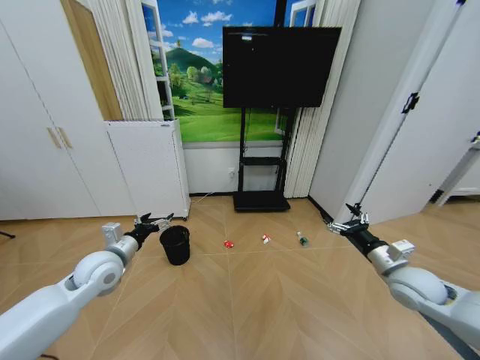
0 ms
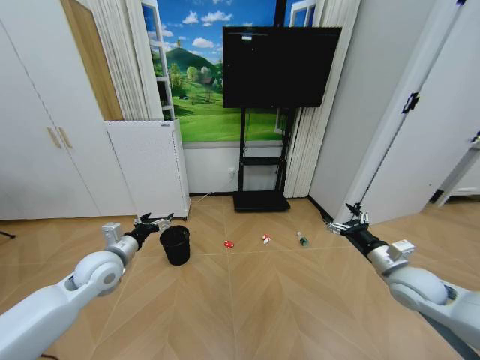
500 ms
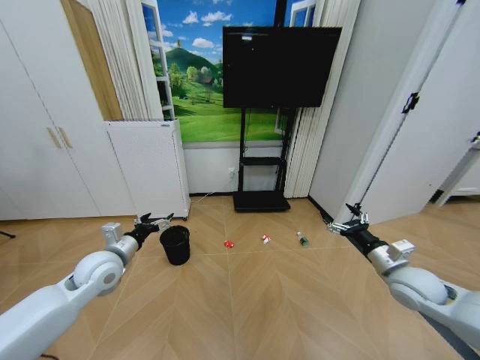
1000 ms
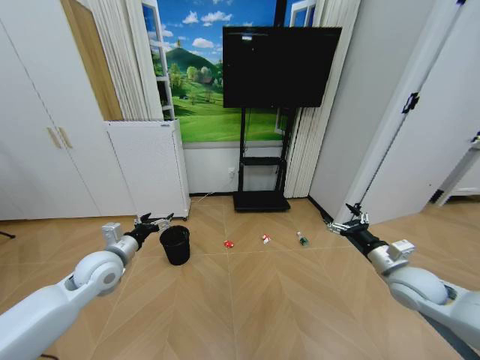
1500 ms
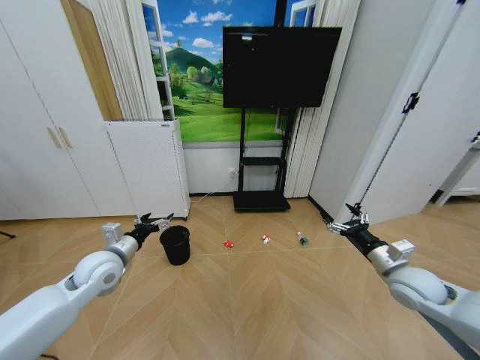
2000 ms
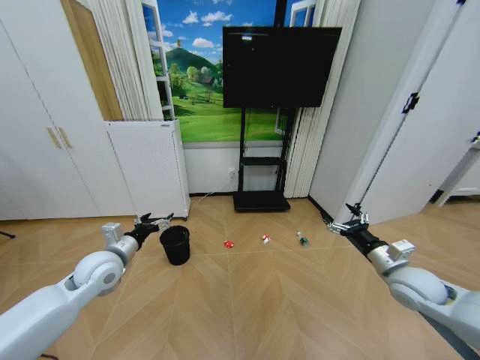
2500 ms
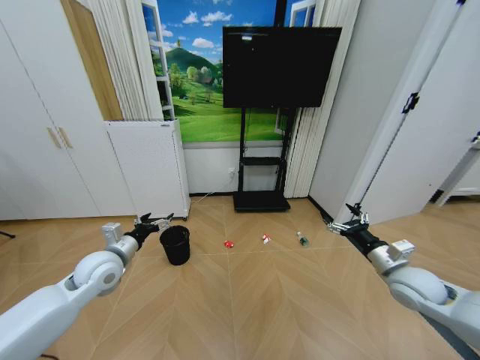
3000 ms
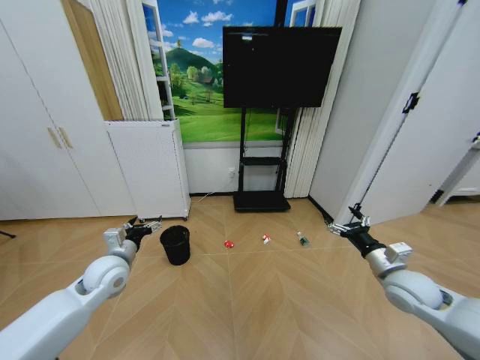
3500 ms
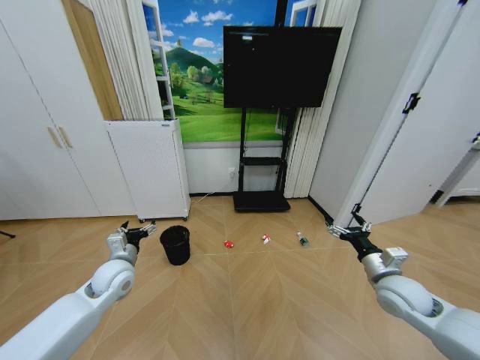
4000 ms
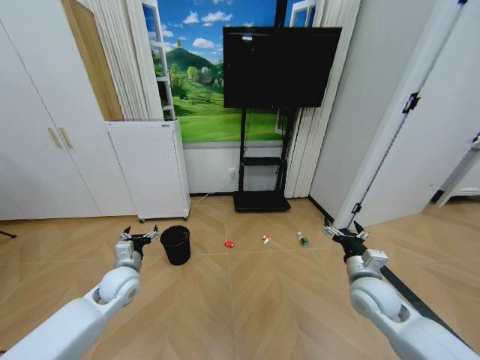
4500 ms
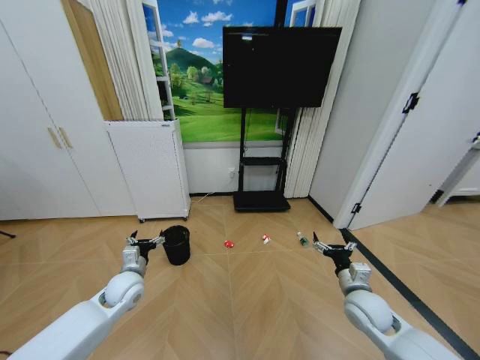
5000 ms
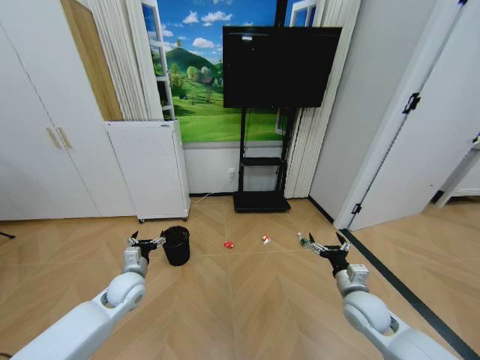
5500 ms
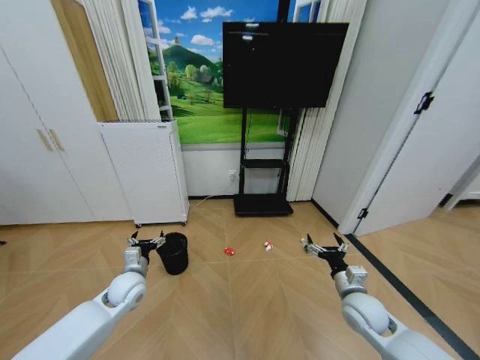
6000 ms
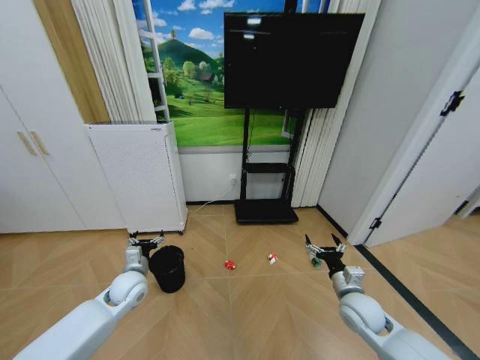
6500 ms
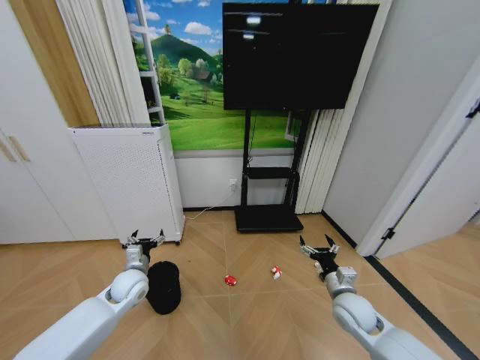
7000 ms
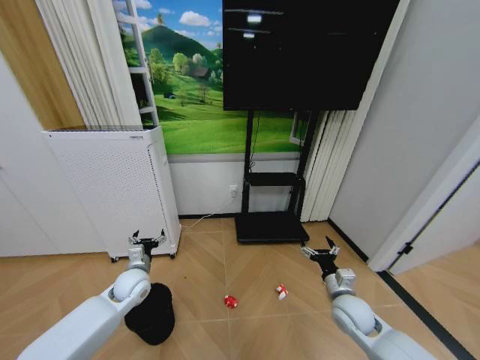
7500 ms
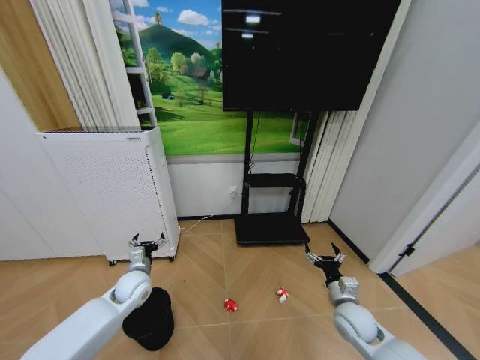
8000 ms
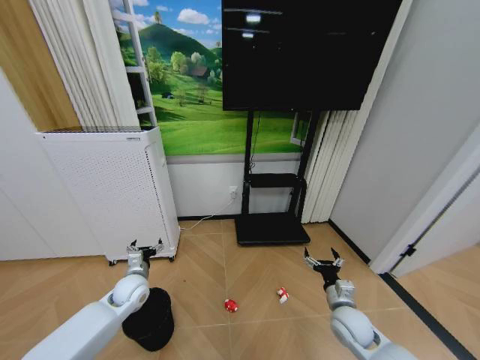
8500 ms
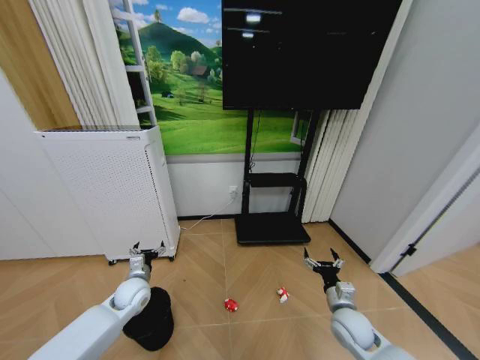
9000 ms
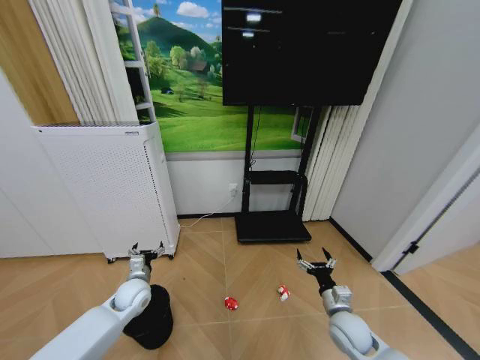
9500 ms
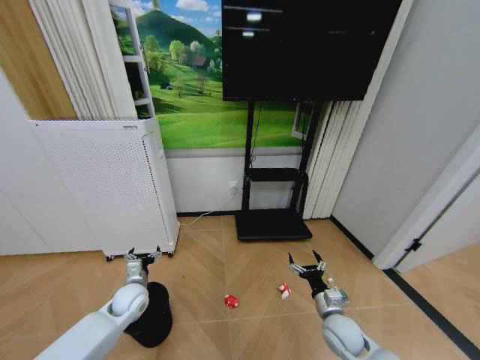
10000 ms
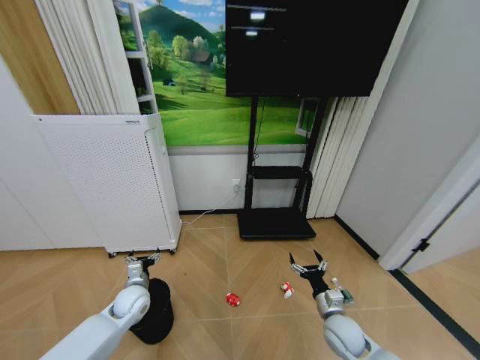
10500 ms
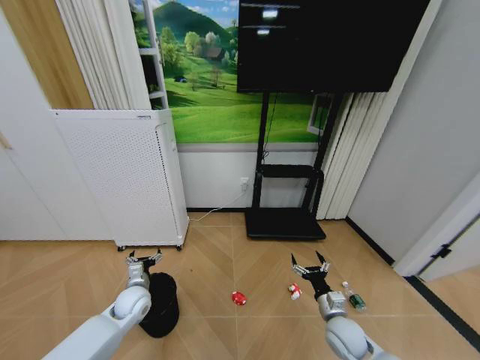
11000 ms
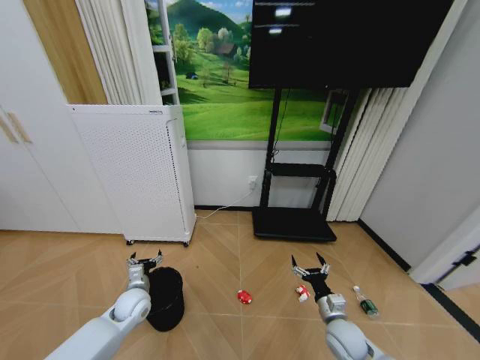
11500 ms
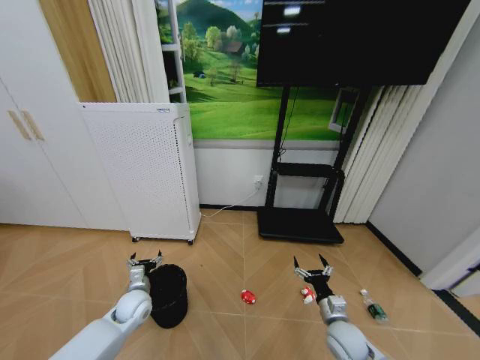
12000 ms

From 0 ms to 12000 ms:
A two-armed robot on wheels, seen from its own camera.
Task of the whole recording: Pick up the trash bin and place the garbage on the floor into it.
From 4000 ms to 6000 ms: The right gripper moves to the left and downward, about 10 cm; the left gripper heads downward, covering roughly 10 cm.
From 8000 ms to 10000 ms: The right gripper moves roughly 5 cm.

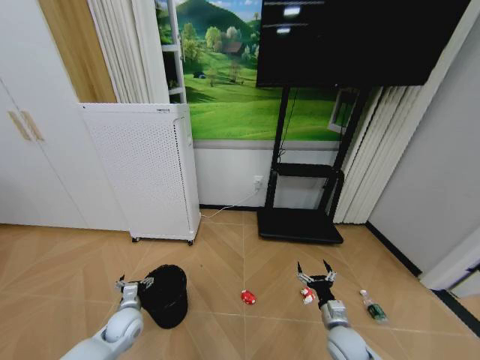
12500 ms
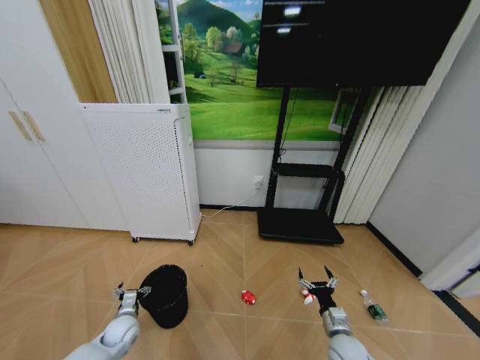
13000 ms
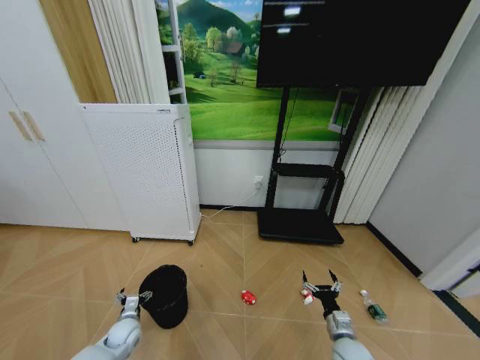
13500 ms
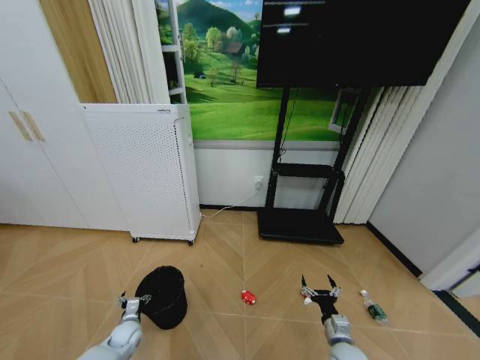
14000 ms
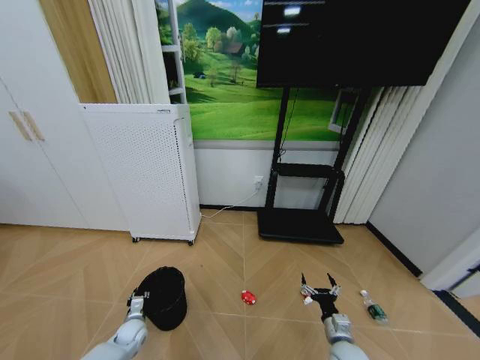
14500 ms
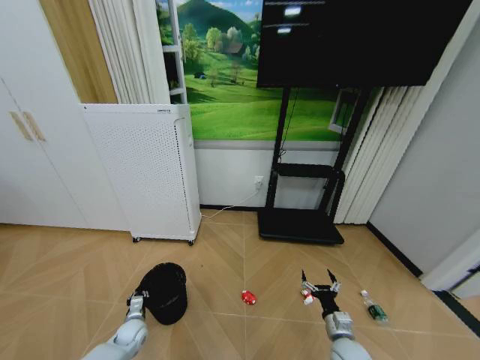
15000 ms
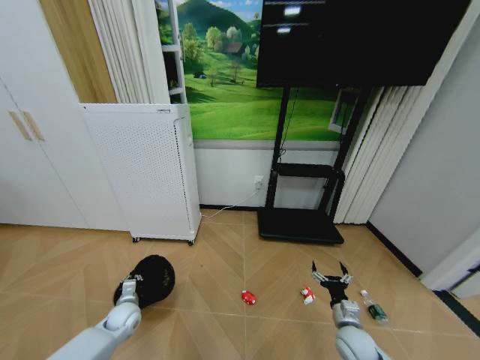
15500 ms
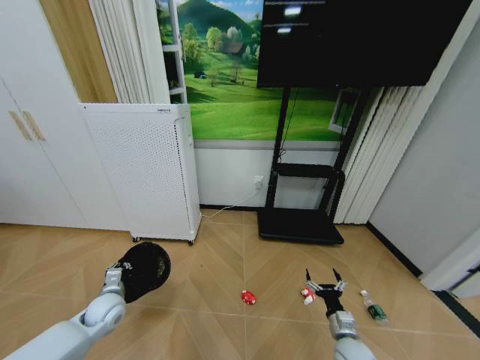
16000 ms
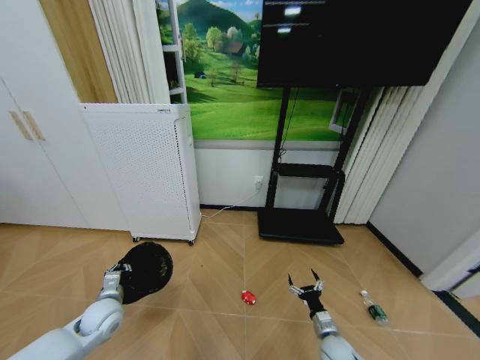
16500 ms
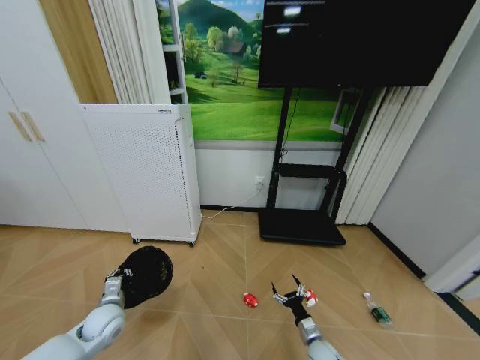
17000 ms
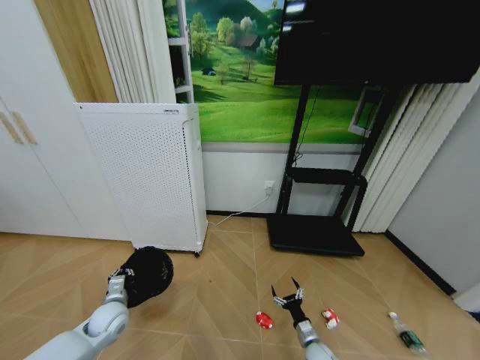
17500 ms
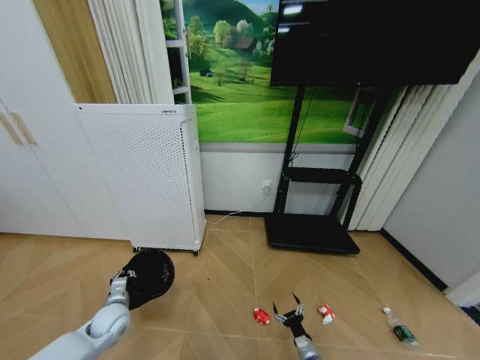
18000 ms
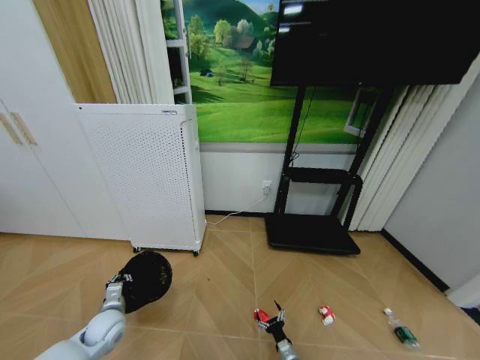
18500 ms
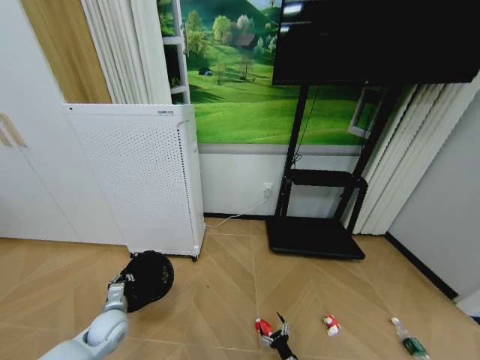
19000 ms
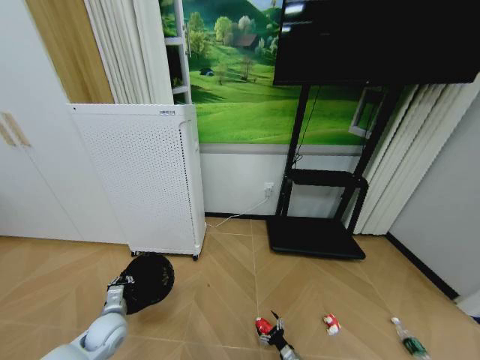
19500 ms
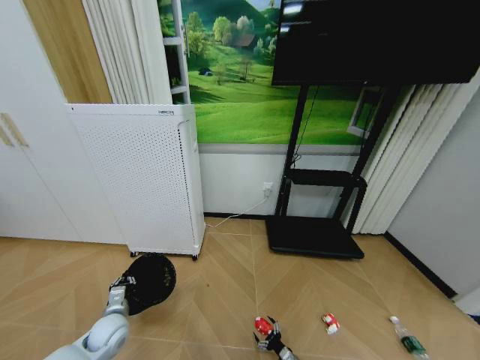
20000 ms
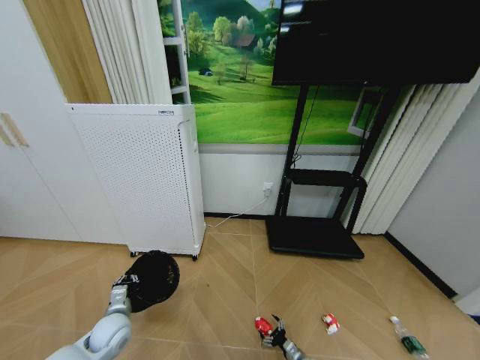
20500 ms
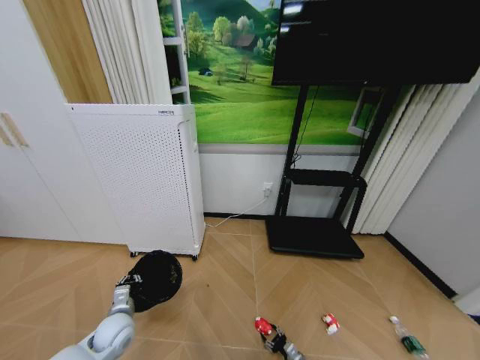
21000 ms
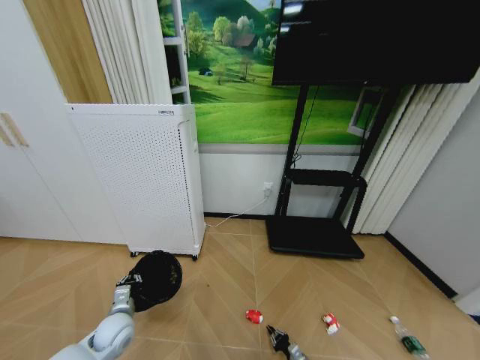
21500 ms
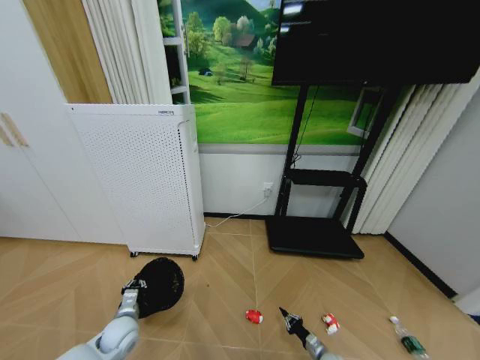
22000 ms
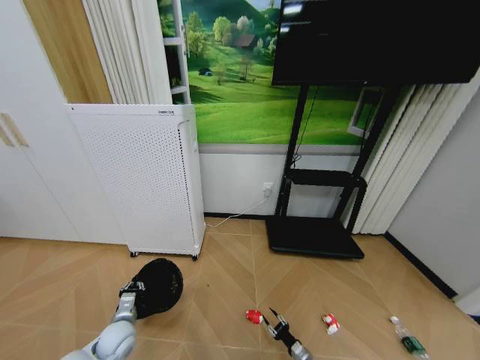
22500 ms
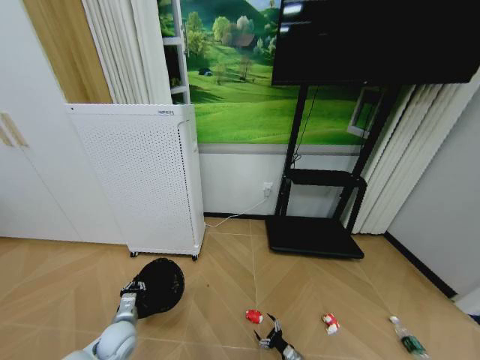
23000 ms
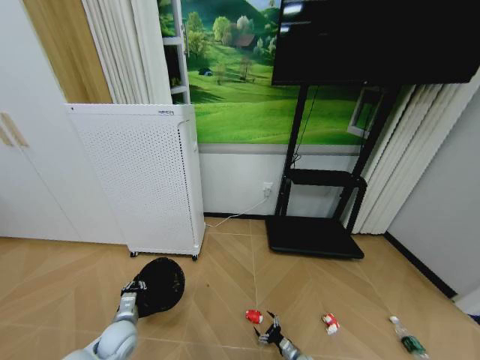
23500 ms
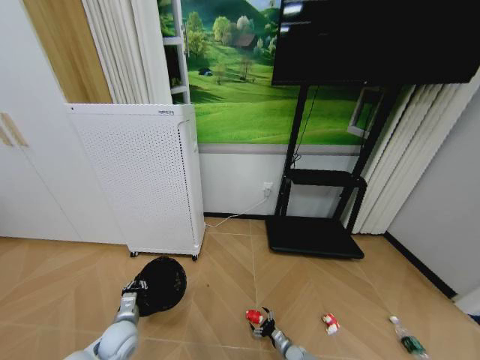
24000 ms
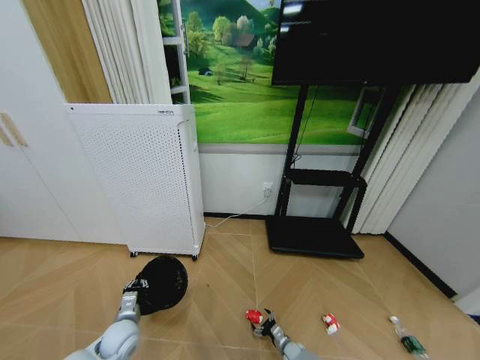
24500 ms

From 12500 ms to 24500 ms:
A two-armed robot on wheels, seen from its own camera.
Task of the whole recording: Pick up the trash bin and place the garbage on the floor into it.
From 12500 ms to 14500 ms: The left gripper is displaced downward by some 10 cm, and closes.
From 14500 ms to 16500 ms: The left gripper moves upward, roughly 20 cm, and closes.
From 16500 ms to 18500 ms: The left gripper shifts by some 5 cm. The right gripper is displaced downward and to the left by roughly 20 cm.
From 18500 ms to 20500 ms: The right gripper shifts some 10 cm to the right and downward.
From 20500 ms to 22500 ms: The right gripper travels to the right and back again, approximately 10 cm each way, and closes.
From 22500 ms to 24500 ms: The right gripper moves to the left and forward, about 10 cm, and opens up.

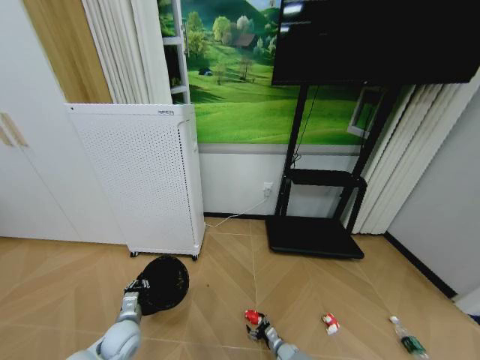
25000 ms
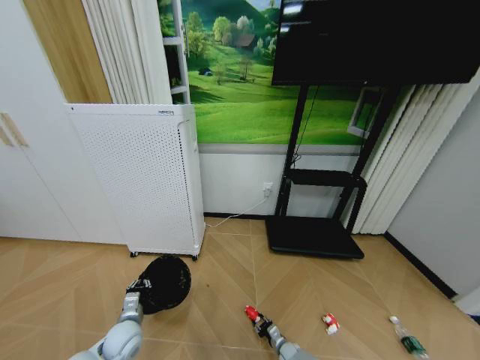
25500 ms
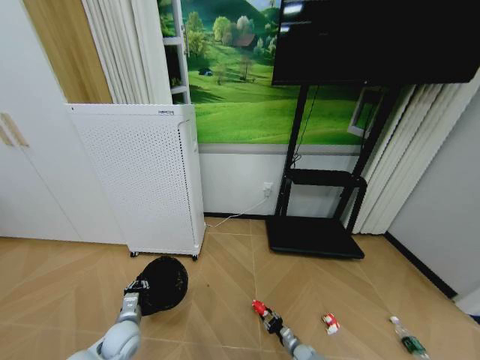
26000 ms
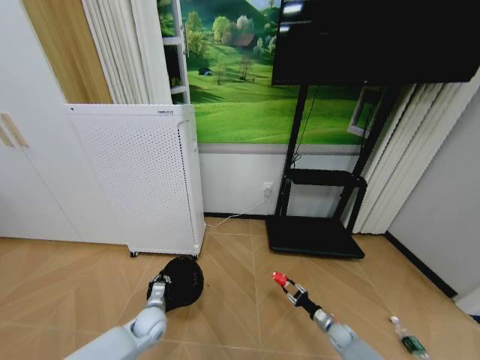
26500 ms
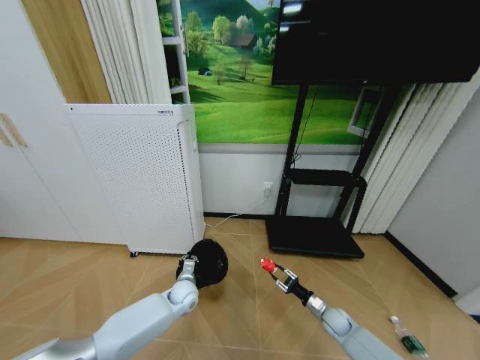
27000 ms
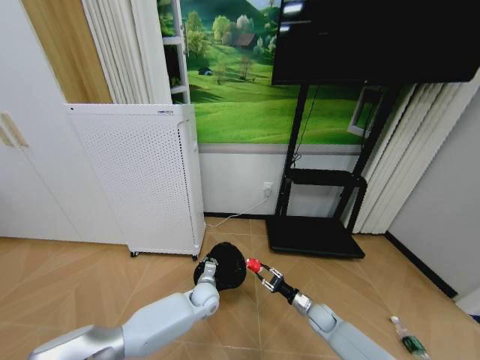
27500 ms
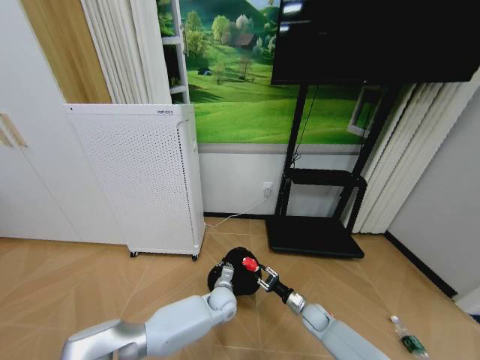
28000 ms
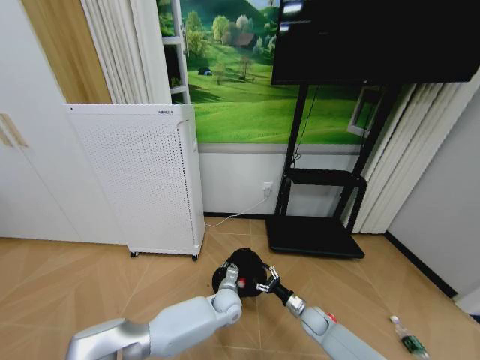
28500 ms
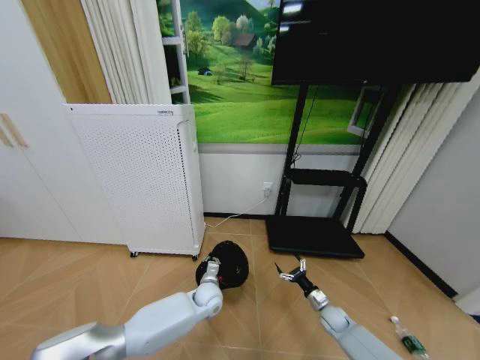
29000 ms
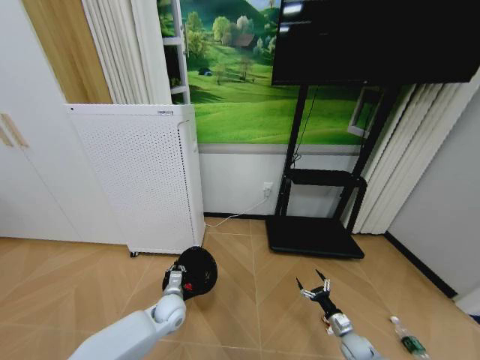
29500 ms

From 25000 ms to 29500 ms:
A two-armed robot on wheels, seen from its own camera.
Task of the whole recording: Pick up the trash bin and place the garbage on the floor into it.
From 25000 ms to 27000 ms: The left gripper is displaced to the right and forward by about 20 cm. The right gripper is displaced upward and to the right by approximately 25 cm, and closes.
From 27000 ms to 29500 ms: The right gripper moves backward and to the right, about 10 cm, and opens up, while the left gripper moves about 15 cm to the right and comes back.
